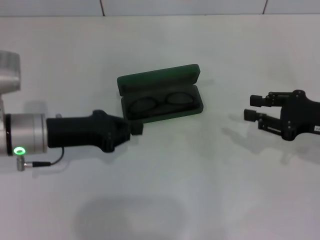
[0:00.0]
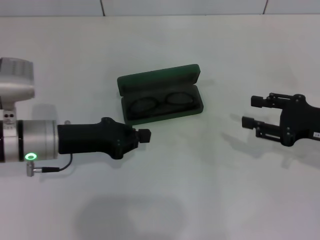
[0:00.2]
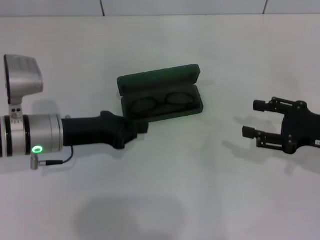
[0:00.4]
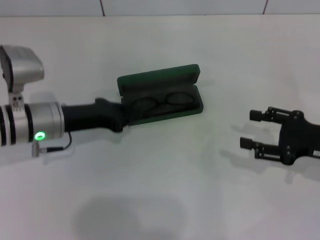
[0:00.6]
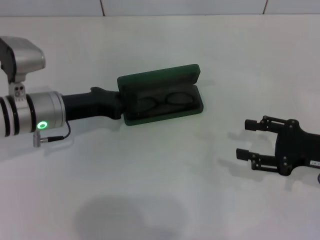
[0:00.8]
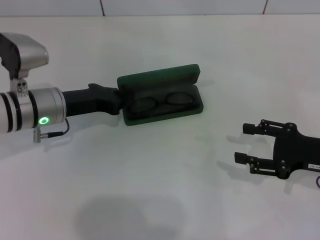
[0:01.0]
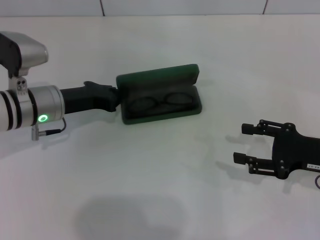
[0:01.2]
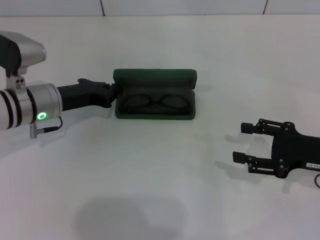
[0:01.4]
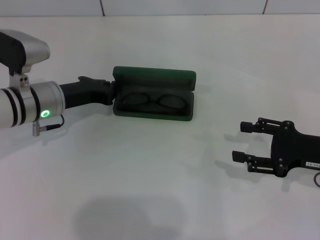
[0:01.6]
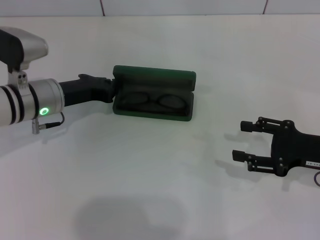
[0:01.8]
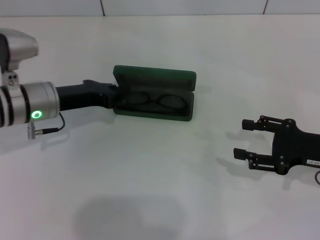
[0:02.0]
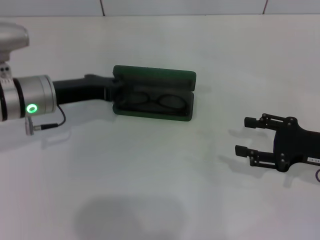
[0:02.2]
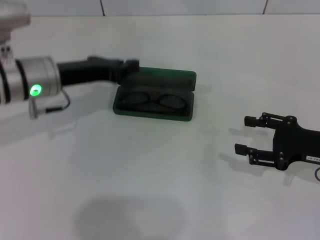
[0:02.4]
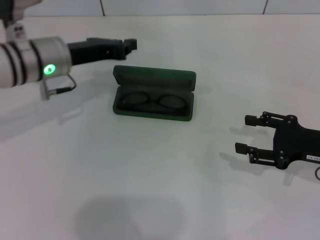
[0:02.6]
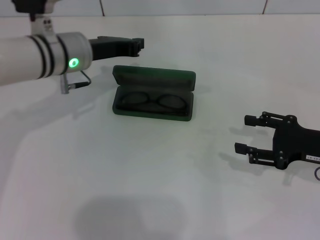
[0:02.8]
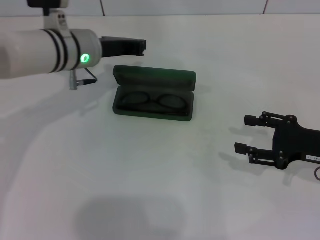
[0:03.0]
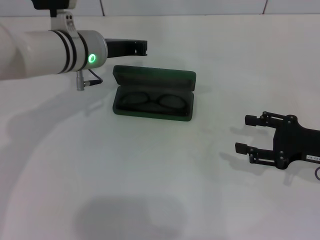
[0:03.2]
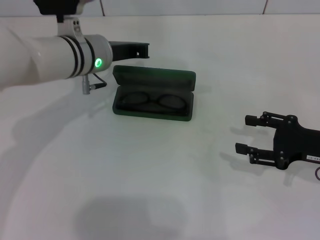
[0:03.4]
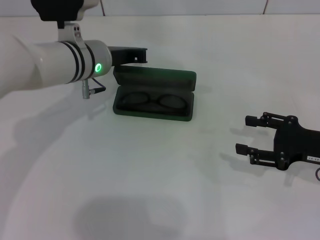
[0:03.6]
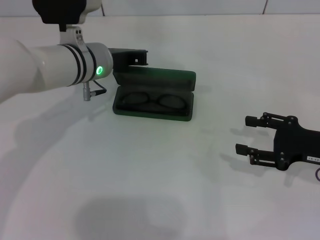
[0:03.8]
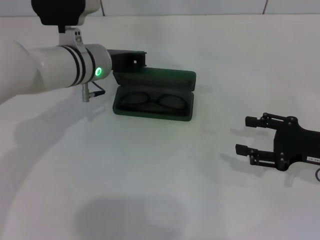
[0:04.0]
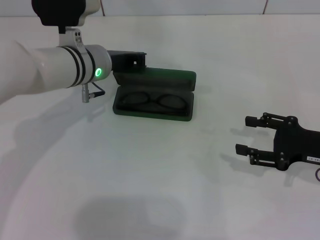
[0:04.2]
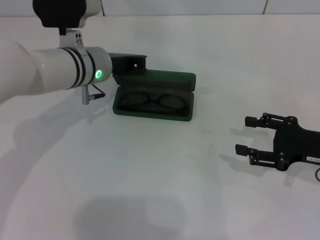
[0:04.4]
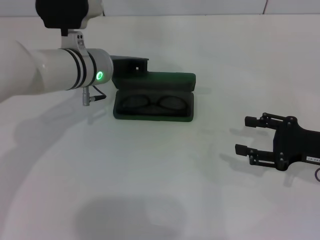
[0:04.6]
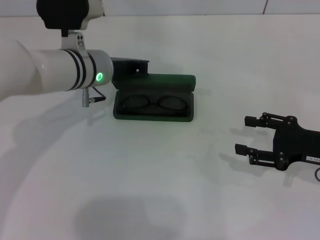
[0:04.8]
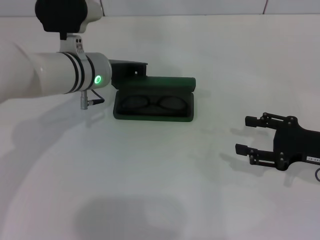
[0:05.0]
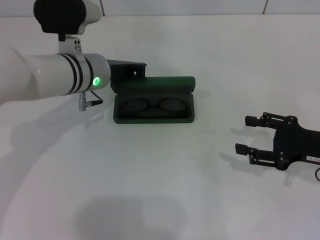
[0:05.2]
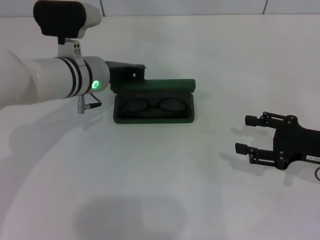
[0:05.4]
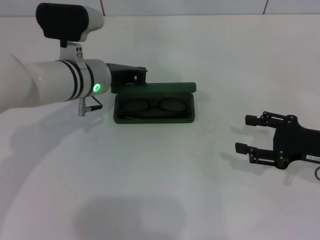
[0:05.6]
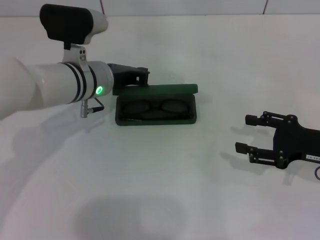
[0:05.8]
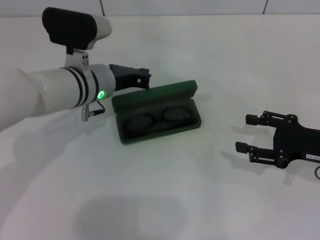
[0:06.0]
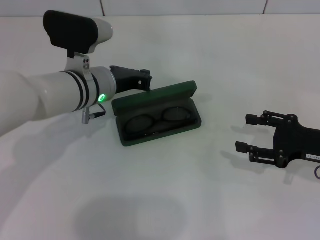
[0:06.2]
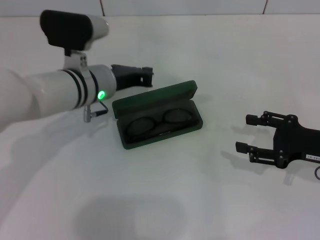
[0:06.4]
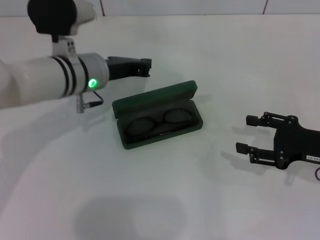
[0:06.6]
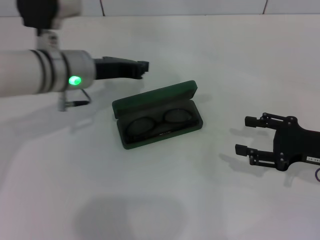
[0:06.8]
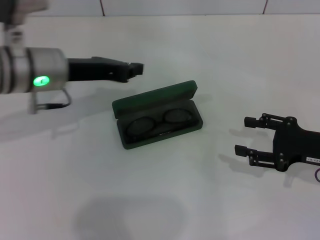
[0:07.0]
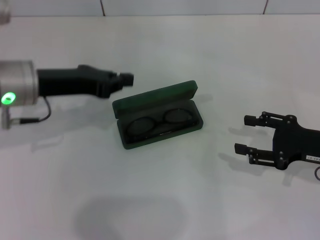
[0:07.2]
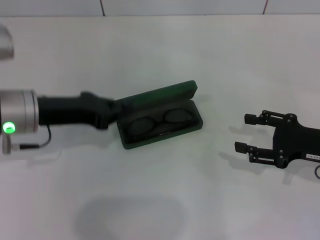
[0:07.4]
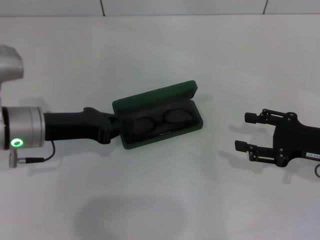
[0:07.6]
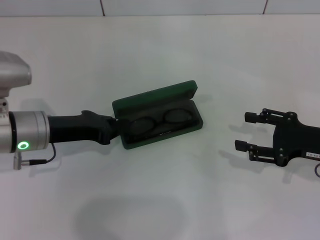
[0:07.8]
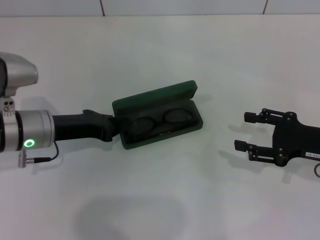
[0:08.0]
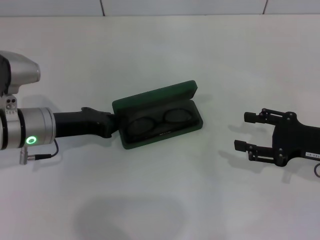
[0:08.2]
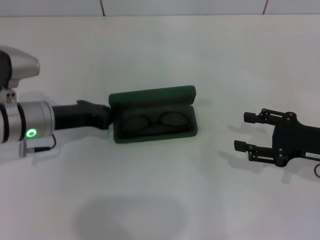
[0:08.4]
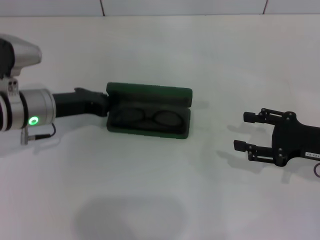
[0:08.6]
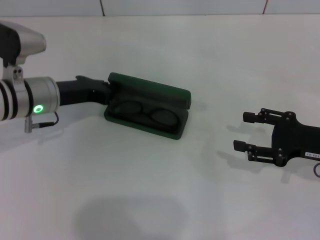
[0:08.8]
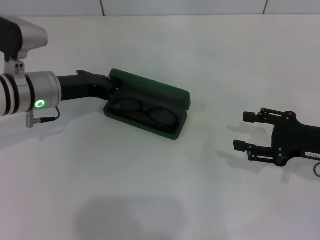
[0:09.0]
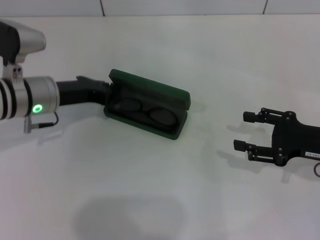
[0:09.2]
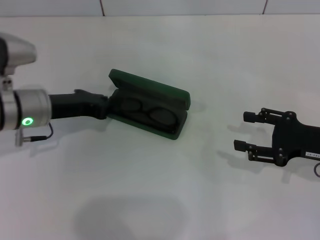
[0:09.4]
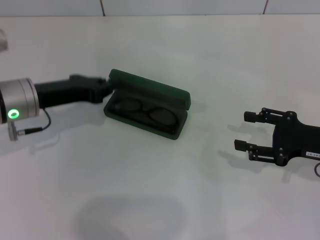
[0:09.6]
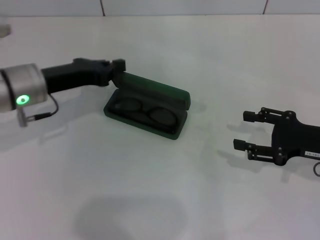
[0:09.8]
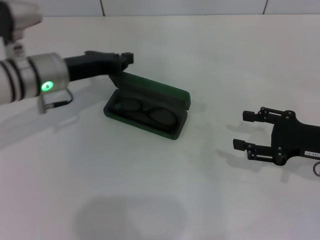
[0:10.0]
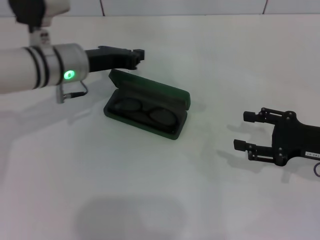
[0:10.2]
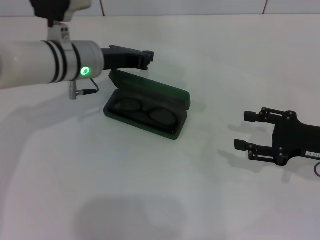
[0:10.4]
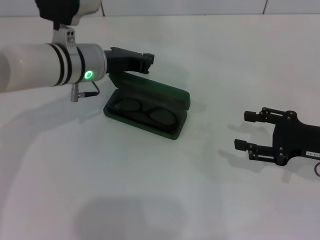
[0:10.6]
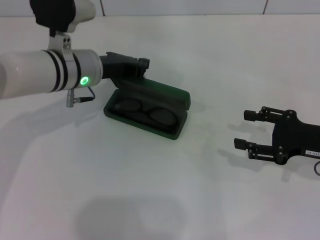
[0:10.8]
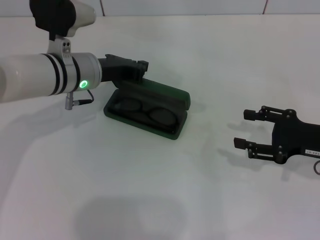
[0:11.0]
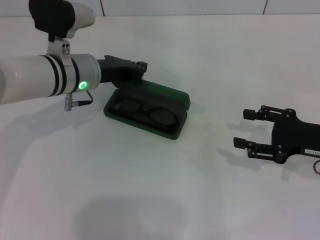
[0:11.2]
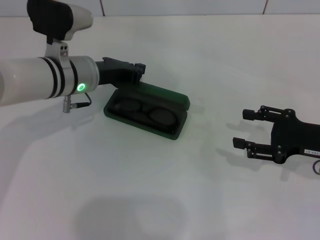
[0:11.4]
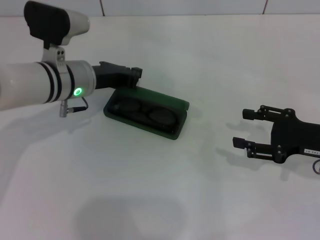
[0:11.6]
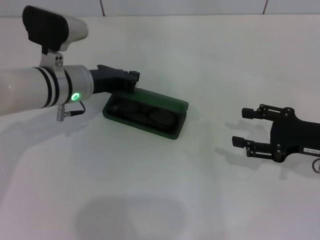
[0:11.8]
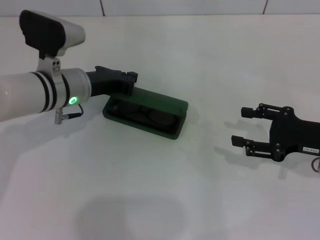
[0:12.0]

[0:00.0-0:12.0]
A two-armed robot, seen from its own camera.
0:00.0 to 0:01.6: The right gripper opens its fingers; the left gripper is displaced forward by about 5 cm.
0:01.6 to 0:03.0: The left gripper shifts about 10 cm to the right and upward.
0:03.0 to 0:06.0: The grippers move only a little.
0:06.0 to 0:07.6: The left gripper shifts about 10 cm to the left and backward.
0:07.6 to 0:09.0: The left gripper travels forward by about 5 cm.
0:09.0 to 0:10.4: The left gripper travels to the right by some 5 cm.
0:10.4 to 0:12.0: The grippers stay close to where they were, moving slightly.

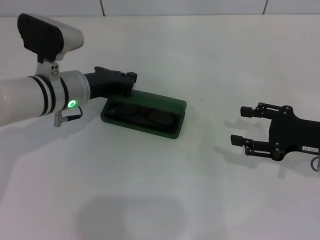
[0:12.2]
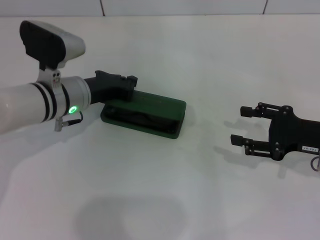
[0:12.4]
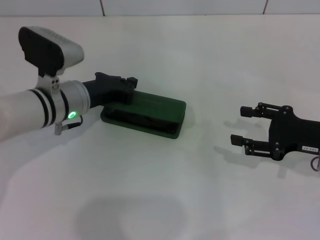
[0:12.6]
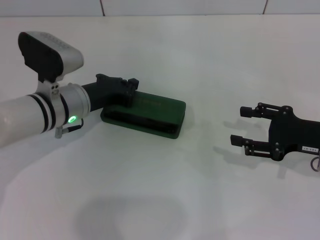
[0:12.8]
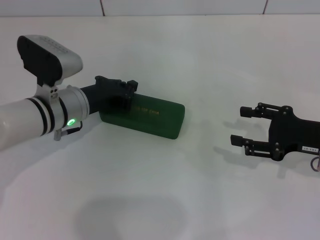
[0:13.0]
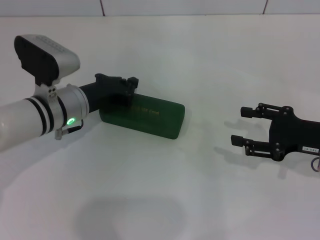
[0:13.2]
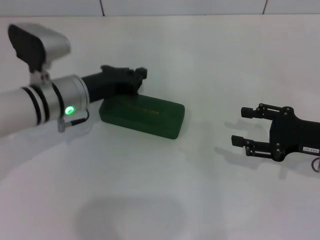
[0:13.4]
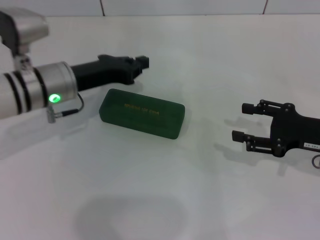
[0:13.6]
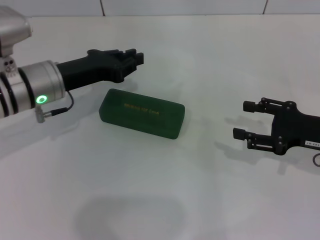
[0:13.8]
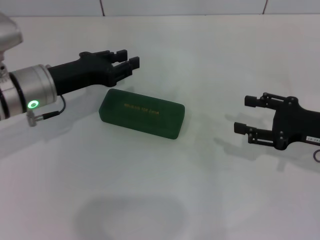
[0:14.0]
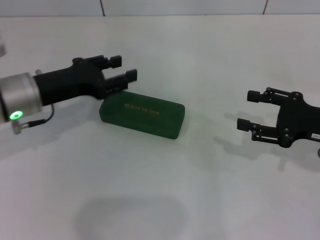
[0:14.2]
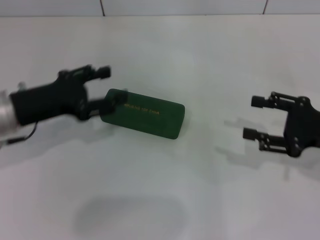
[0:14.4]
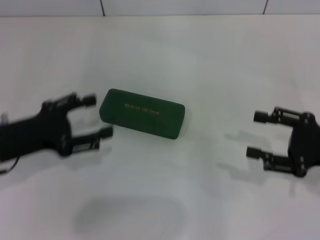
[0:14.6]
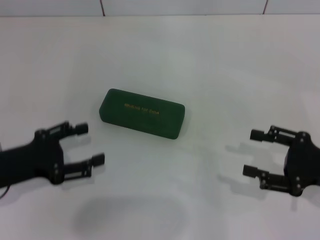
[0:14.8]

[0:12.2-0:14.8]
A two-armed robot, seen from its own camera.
0:12.2 to 0:13.4: The grippers move only a little.
0:13.4 to 0:14.8: The right gripper shifts by approximately 5 cm. Meanwhile the left gripper travels backward and to the left by approximately 15 cm, and opens up.
